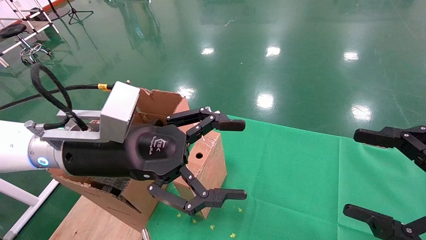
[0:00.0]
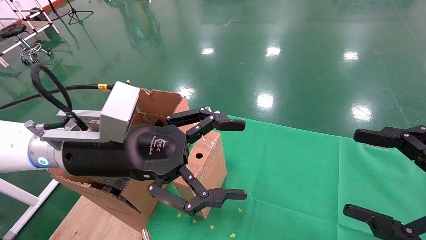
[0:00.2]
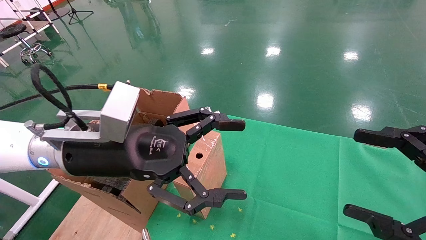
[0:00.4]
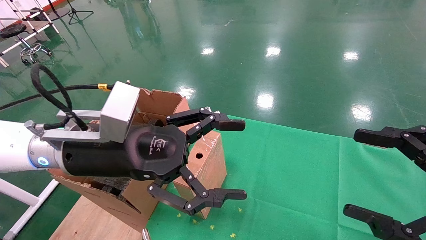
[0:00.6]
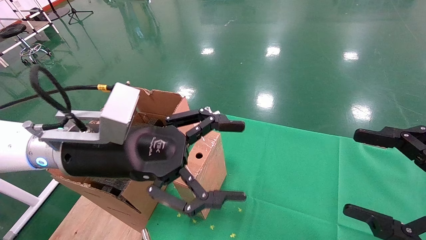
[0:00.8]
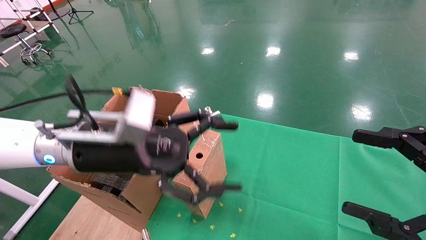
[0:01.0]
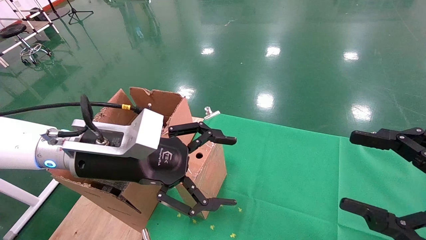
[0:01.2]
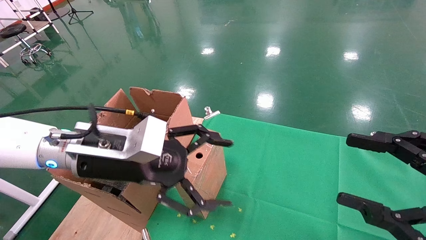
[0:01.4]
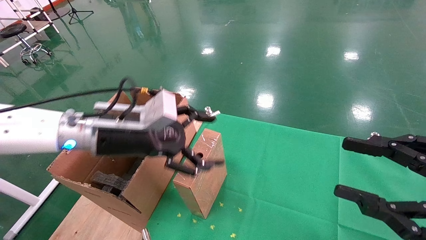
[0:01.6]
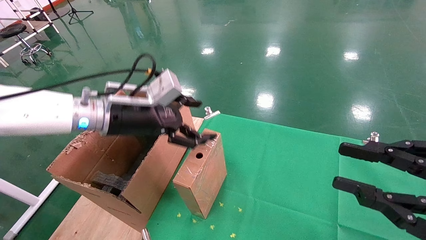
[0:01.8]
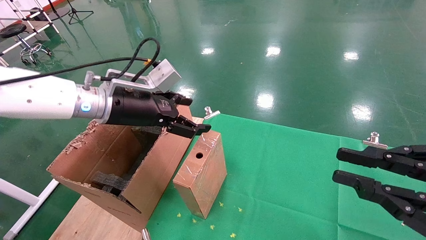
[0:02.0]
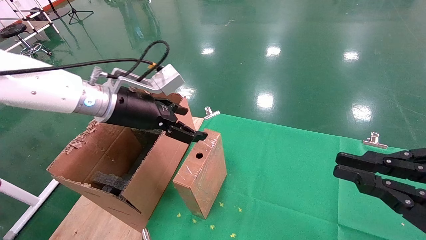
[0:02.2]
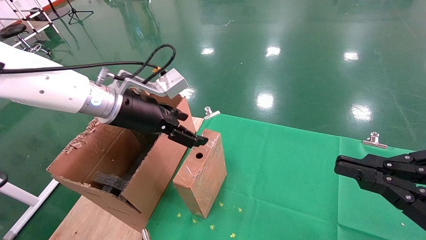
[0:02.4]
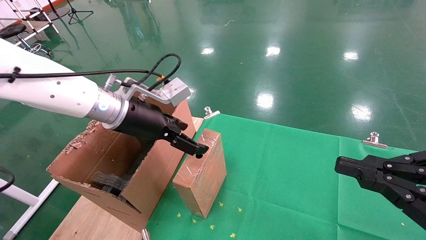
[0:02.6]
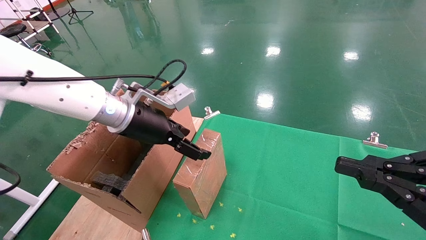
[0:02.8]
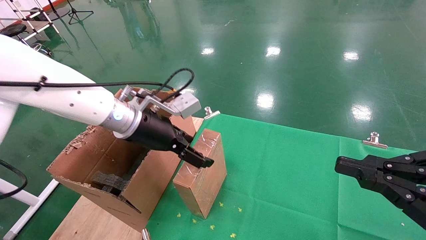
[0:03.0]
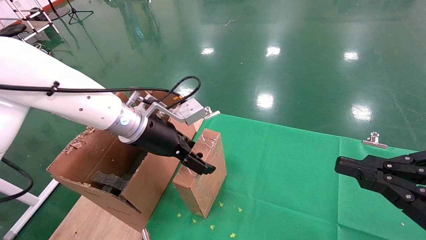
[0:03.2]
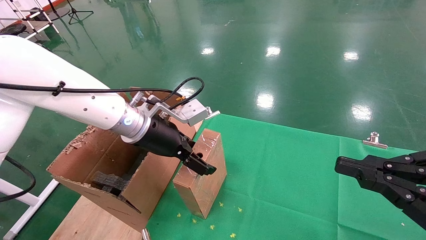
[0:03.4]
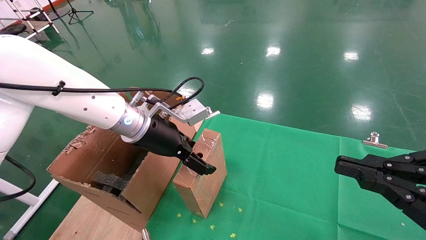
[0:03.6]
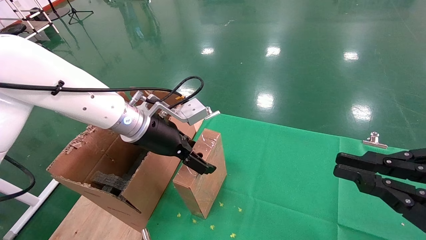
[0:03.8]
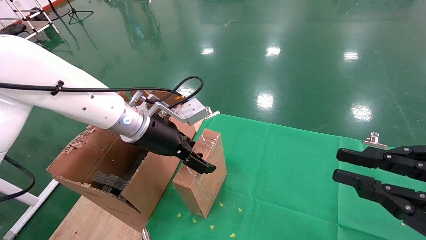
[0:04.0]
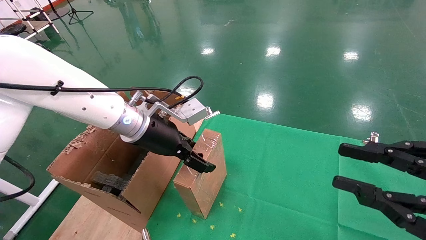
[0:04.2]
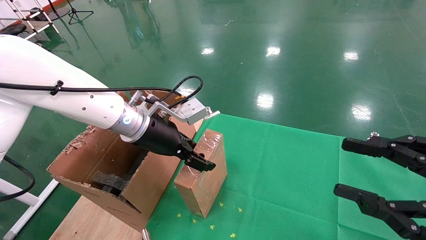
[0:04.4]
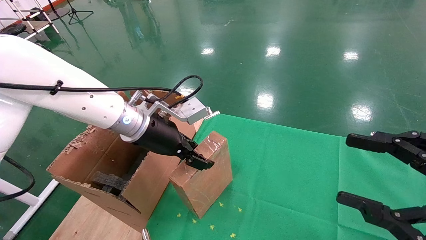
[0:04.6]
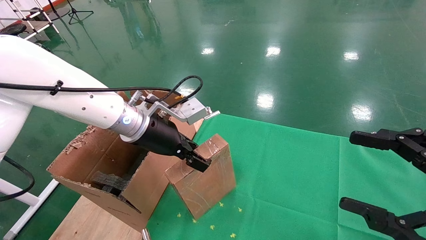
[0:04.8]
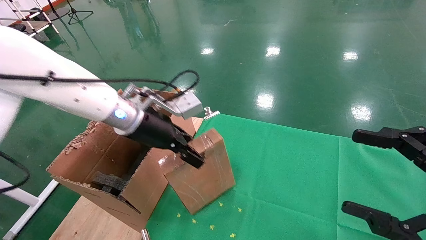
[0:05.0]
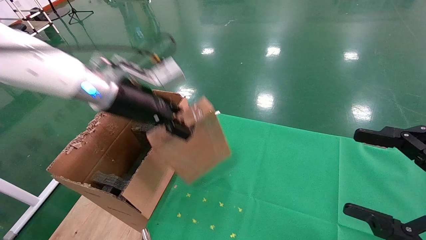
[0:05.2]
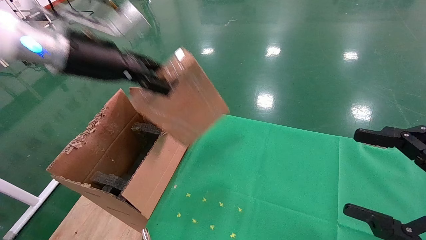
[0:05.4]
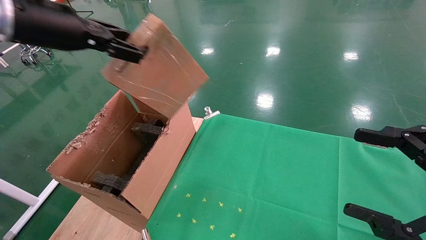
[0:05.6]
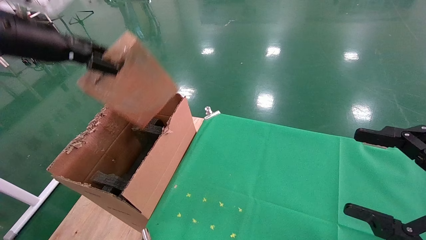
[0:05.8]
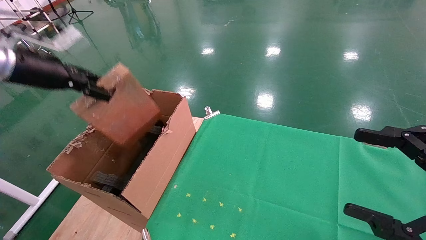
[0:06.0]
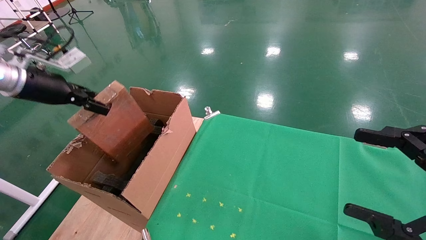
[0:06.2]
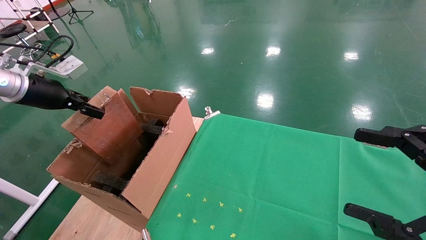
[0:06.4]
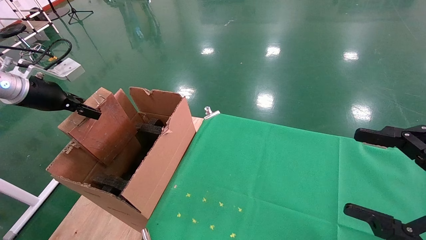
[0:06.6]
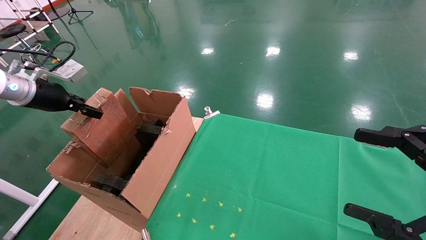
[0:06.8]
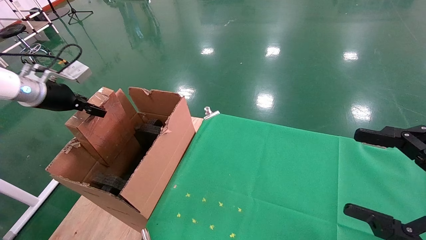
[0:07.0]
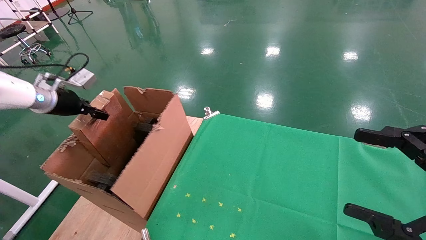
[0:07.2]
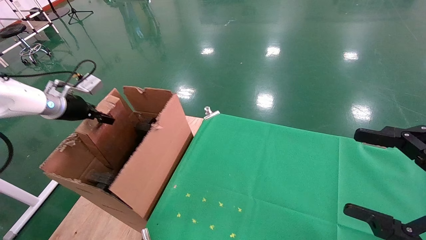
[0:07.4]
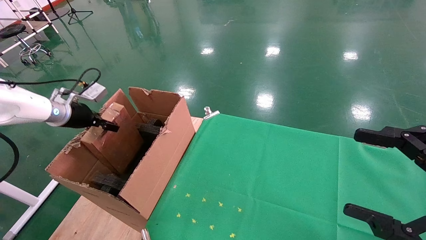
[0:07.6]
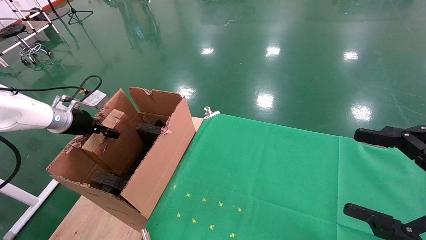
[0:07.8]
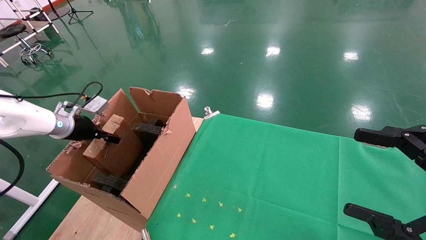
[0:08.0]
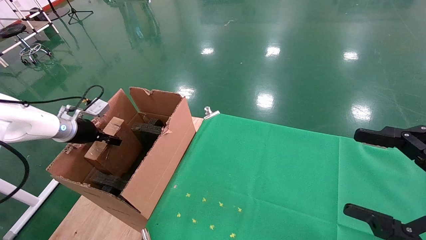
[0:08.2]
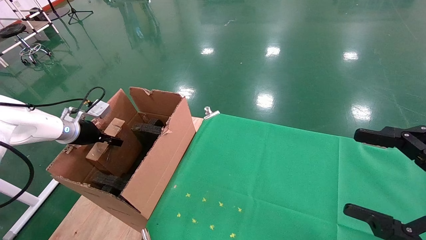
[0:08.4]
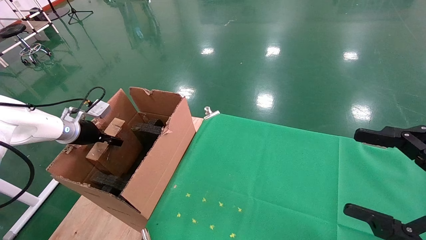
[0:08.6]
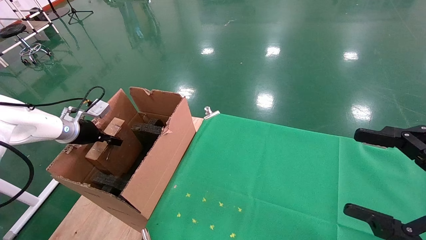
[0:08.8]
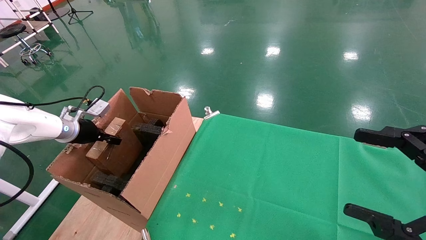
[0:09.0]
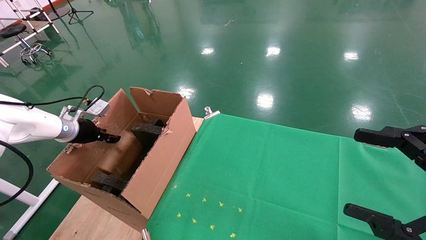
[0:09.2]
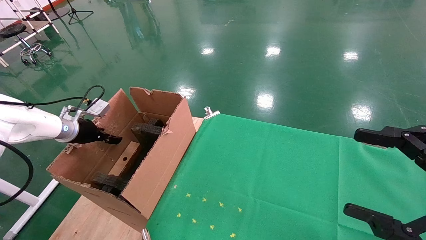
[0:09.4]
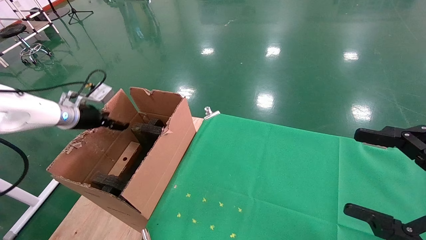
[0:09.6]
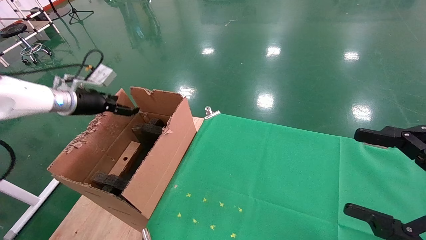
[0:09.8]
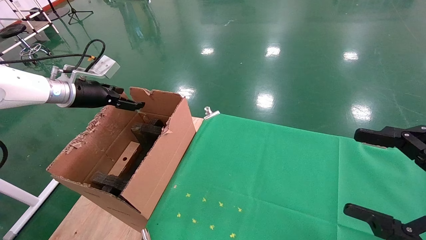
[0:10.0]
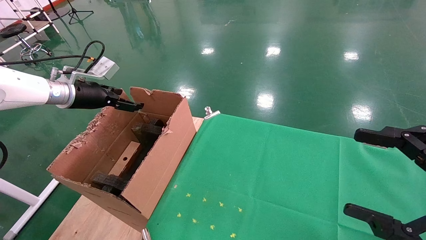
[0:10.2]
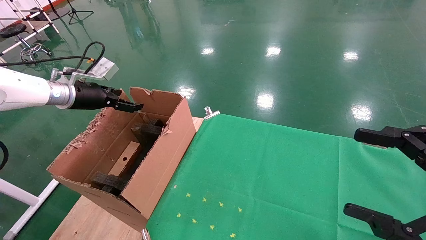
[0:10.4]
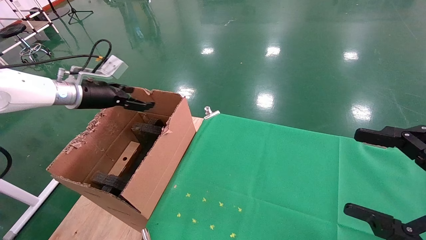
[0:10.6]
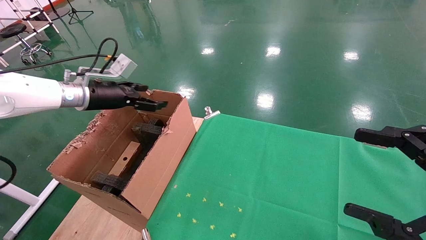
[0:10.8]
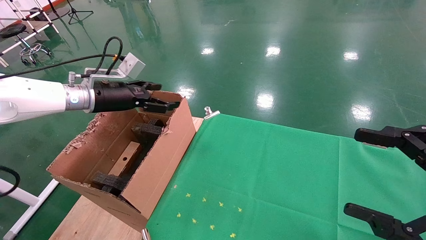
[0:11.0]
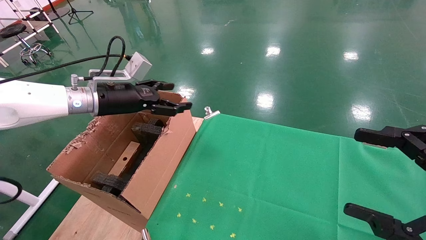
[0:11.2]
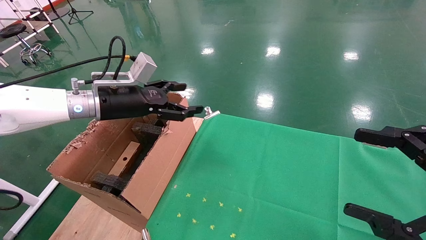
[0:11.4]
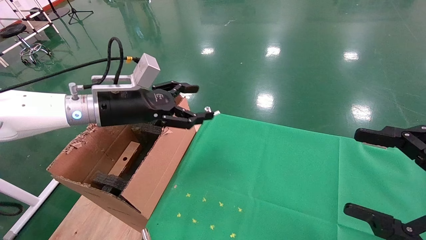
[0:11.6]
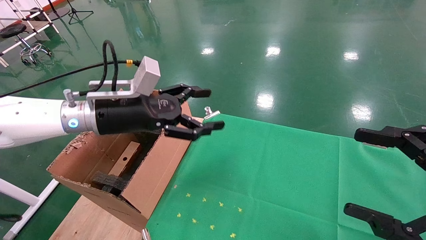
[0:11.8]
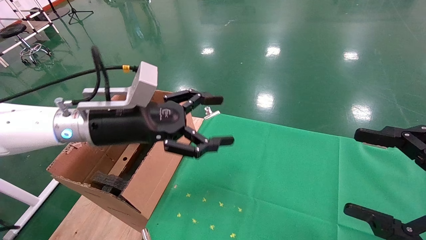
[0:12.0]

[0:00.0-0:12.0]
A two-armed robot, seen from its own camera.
Task of the whole recording: using a robotic arm to pick up a cardboard box and palace it the carton.
Step, 0:01.0 to 0:04.6: Pick up the mouse and the power cord paper box.
Step, 0:04.8 to 0:09.8: Place the mouse and the power cord paper box into the container.
0:00.0 to 0:01.6: The right gripper closes. Meanwhile the left gripper heads forward, covering roughly 5 cm.
0:01.6 to 0:03.0: The right gripper closes, while the left gripper ends up approximately 5 cm from where it was.
0:03.0 to 0:04.4: The right gripper opens.
0:04.4 to 0:06.0: The right gripper opens. The left gripper shifts approximately 25 cm to the left and upward, and closes its fingers.
0:06.0 to 0:07.6: The left gripper heads downward and forward, covering roughly 15 cm.
0:07.6 to 0:09.0: The left gripper moves downward, approximately 5 cm.
0:09.0 to 0:10.4: The left gripper travels upward and to the right by some 10 cm, and opens up.
0:10.4 to 0:12.0: The left gripper goes some 20 cm to the right and backward.

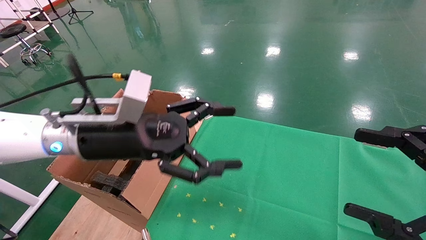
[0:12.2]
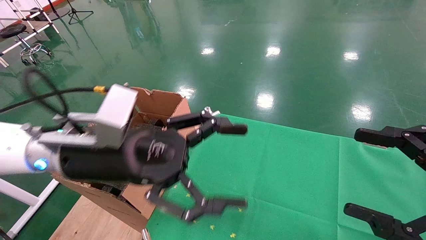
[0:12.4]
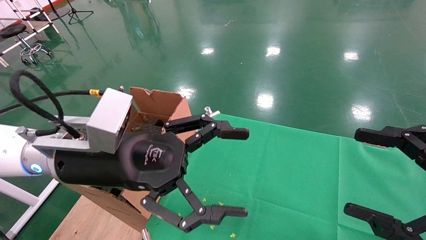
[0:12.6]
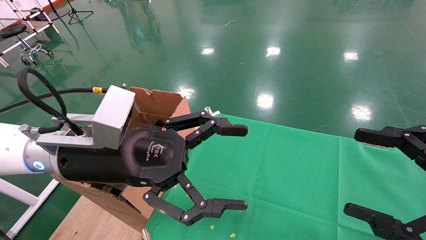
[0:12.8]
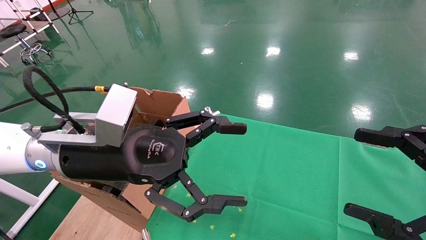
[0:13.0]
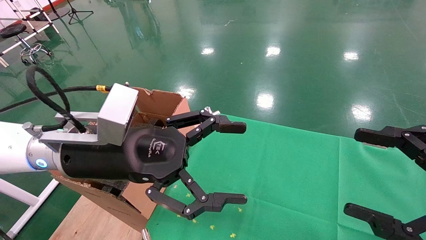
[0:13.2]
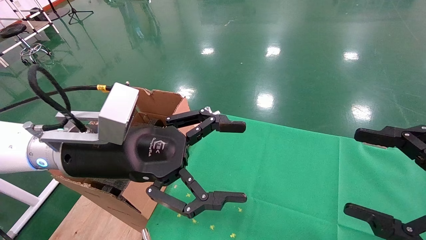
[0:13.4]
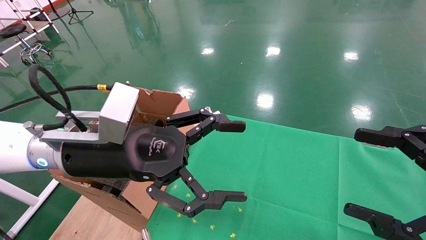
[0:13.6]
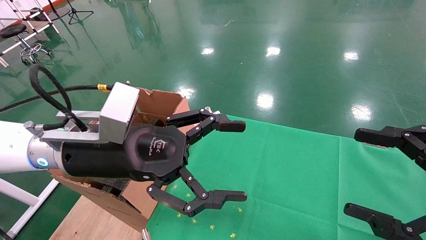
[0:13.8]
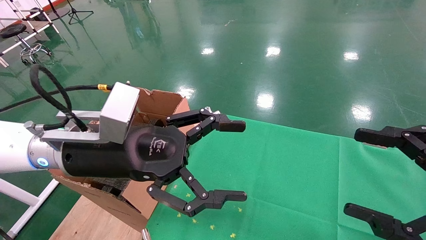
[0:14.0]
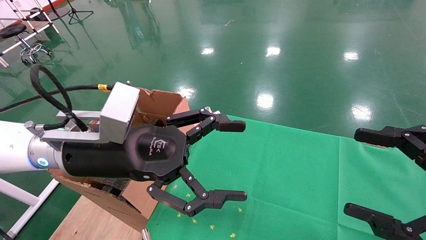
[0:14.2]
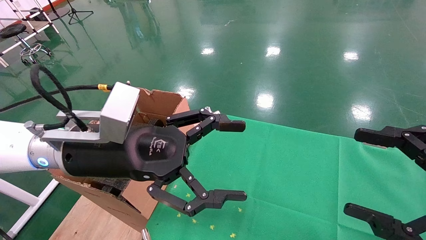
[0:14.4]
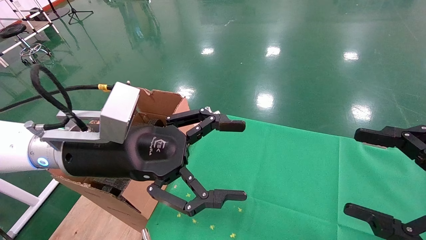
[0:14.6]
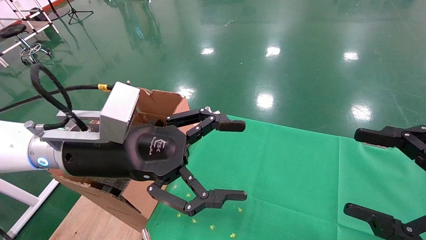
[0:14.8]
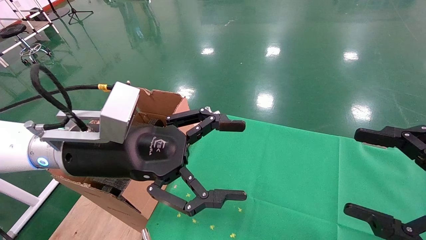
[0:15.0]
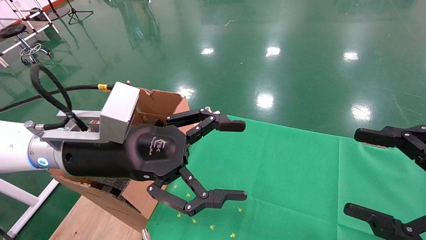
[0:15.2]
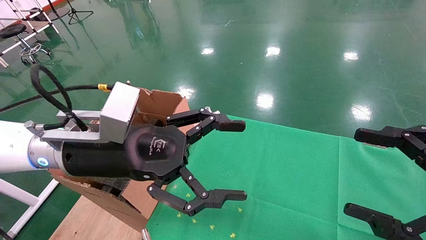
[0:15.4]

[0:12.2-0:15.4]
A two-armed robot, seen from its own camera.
Task of the whole recording: using a robotic arm to pick up a cardboard box and palace it the carton.
0:12.2 to 0:13.8: There are only small adjustments of the grippers.
0:13.8 to 0:15.4: Both grippers stay about where they are.

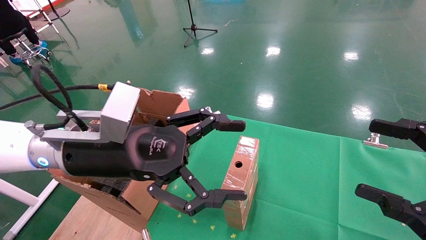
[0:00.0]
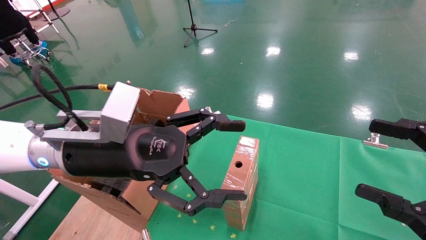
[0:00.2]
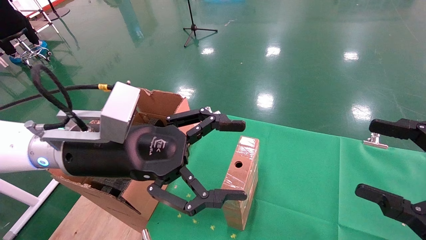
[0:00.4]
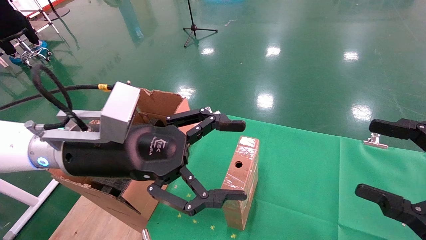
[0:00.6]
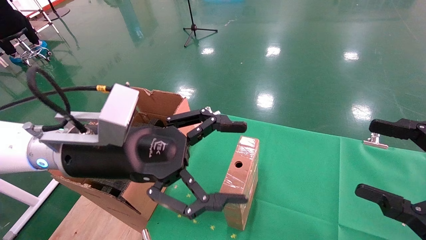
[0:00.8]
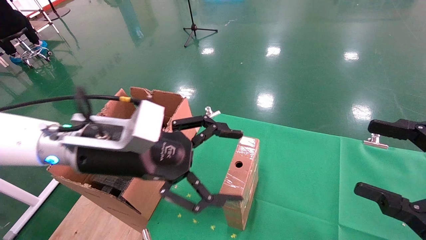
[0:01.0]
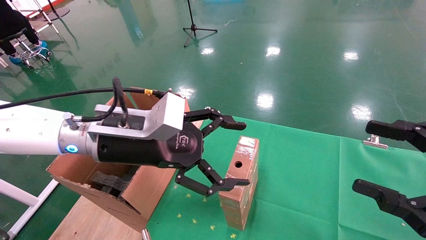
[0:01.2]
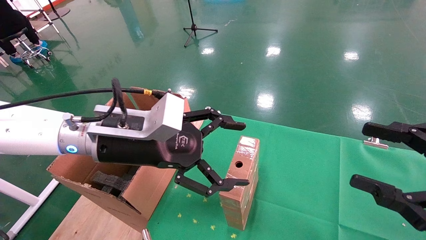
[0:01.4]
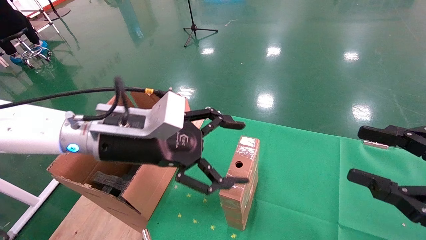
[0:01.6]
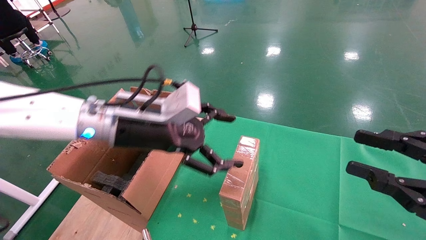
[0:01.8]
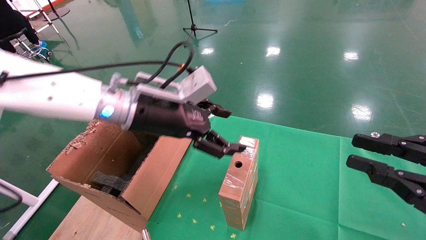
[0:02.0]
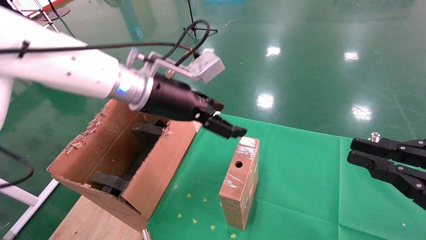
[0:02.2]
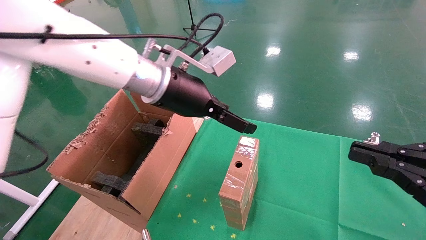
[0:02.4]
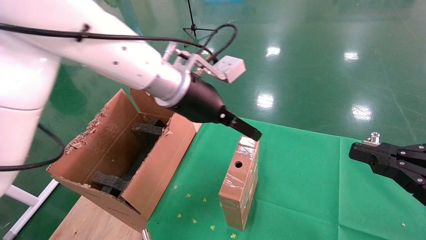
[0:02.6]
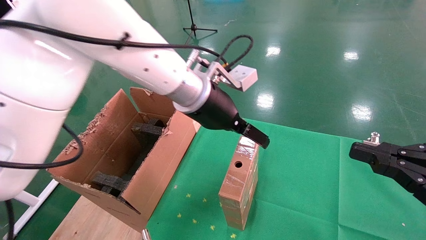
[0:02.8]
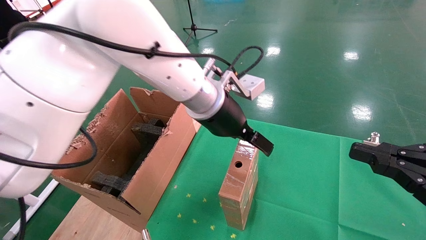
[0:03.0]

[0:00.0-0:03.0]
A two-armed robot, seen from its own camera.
Task of the whole recording: using a robotic arm to pick up a cardboard box and palace it the carton.
0:01.6 to 0:03.0: The left gripper shifts roughly 15 cm to the right and forward, while the right gripper closes.
